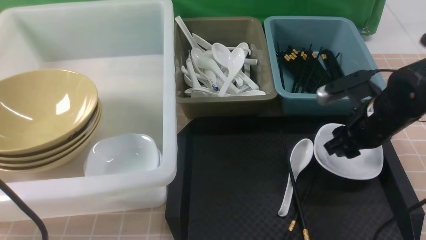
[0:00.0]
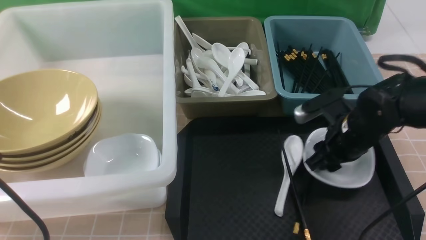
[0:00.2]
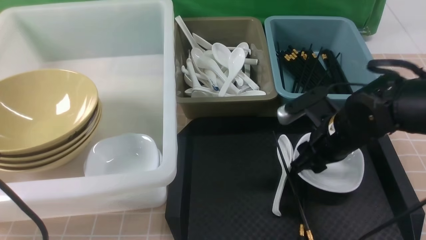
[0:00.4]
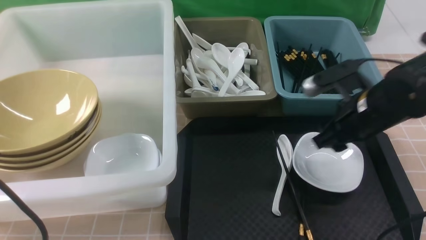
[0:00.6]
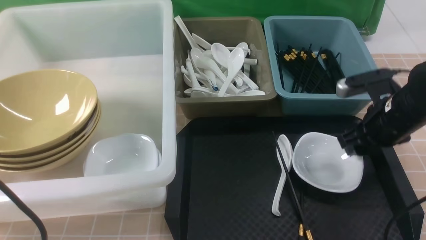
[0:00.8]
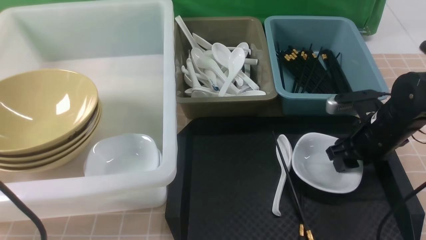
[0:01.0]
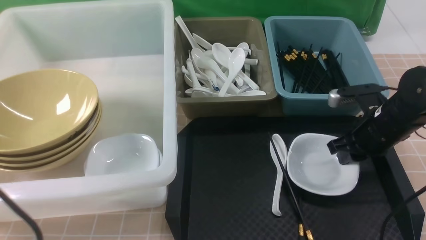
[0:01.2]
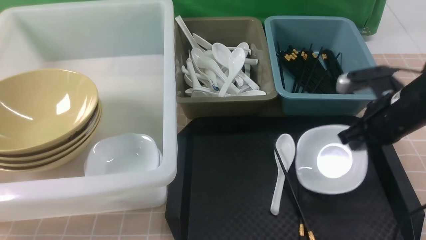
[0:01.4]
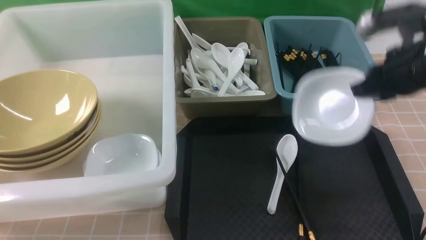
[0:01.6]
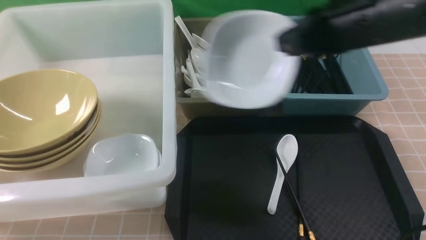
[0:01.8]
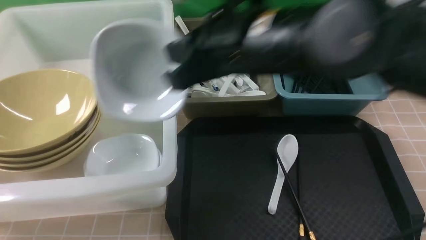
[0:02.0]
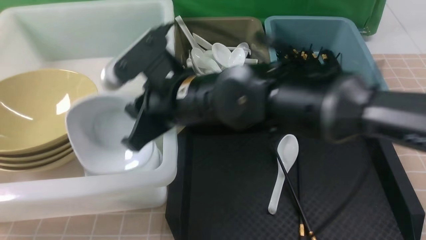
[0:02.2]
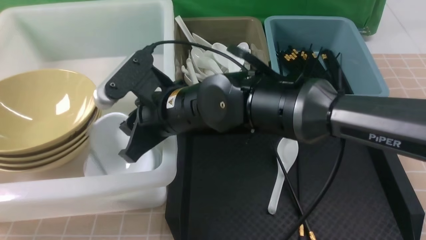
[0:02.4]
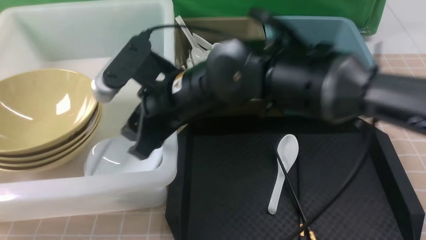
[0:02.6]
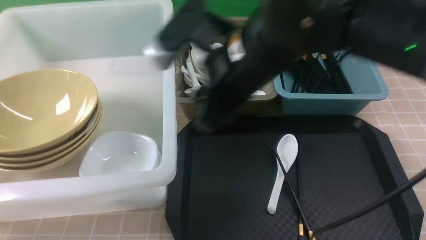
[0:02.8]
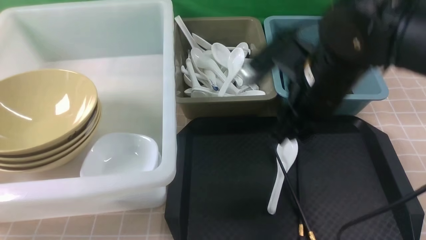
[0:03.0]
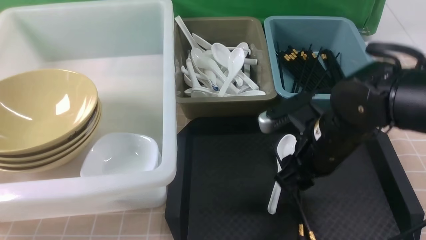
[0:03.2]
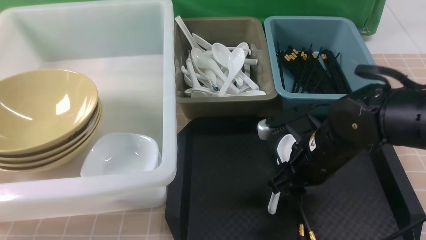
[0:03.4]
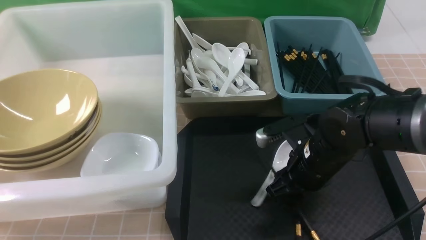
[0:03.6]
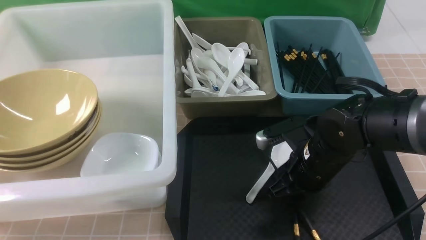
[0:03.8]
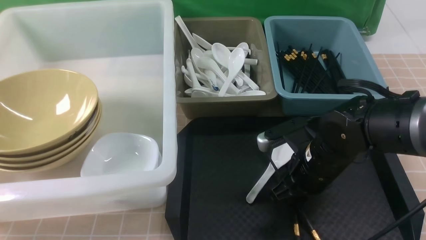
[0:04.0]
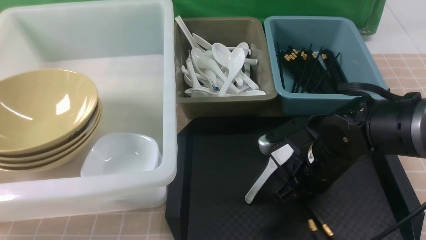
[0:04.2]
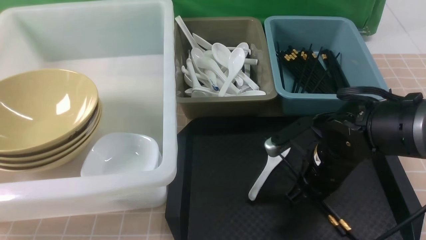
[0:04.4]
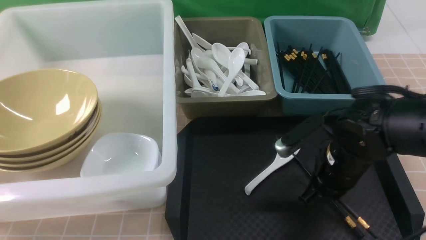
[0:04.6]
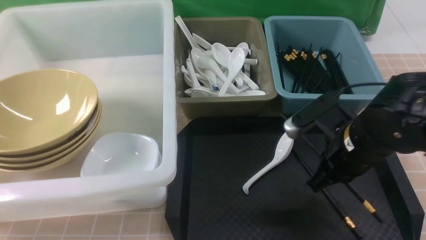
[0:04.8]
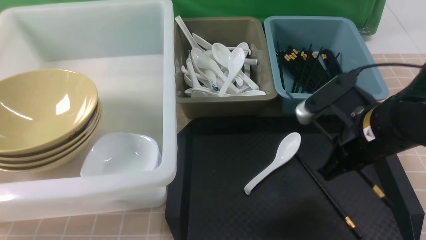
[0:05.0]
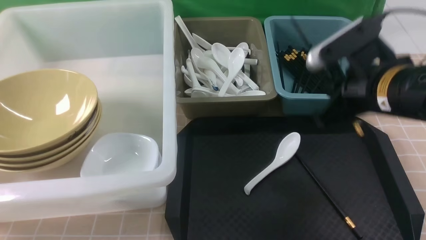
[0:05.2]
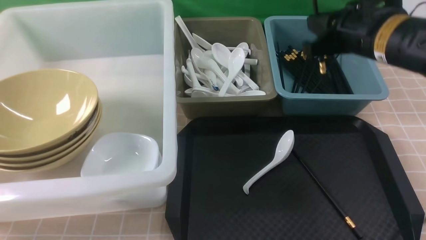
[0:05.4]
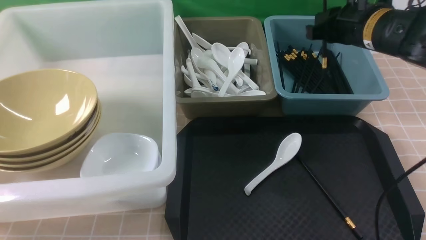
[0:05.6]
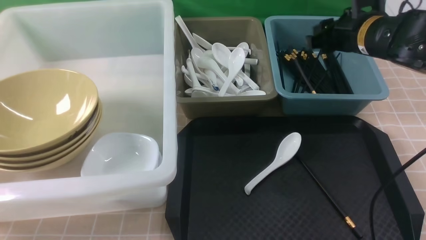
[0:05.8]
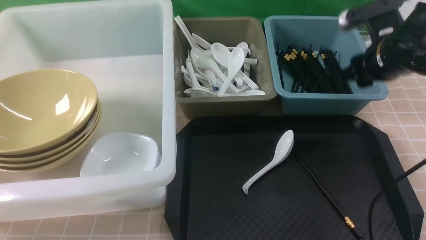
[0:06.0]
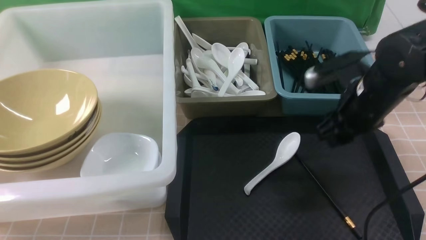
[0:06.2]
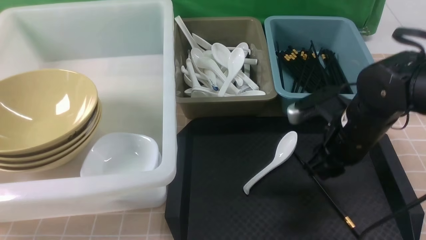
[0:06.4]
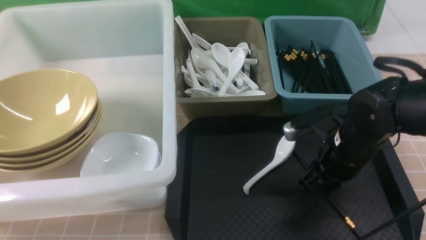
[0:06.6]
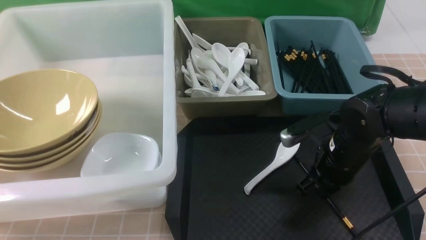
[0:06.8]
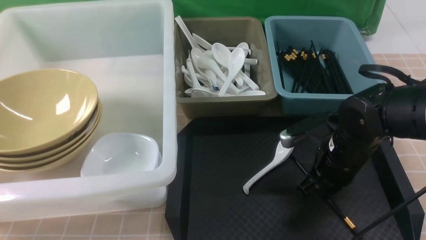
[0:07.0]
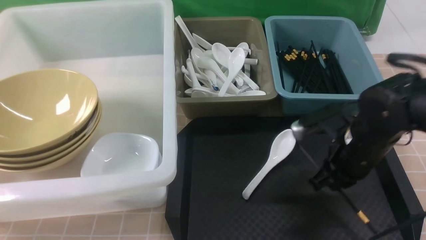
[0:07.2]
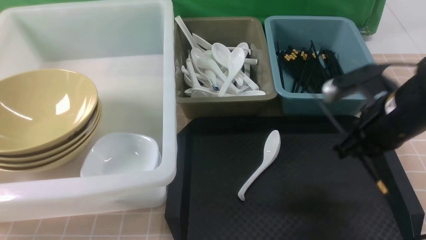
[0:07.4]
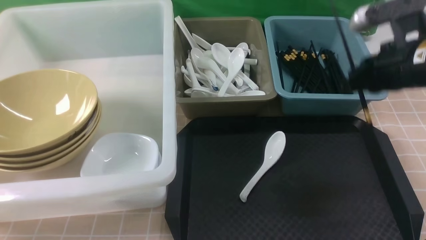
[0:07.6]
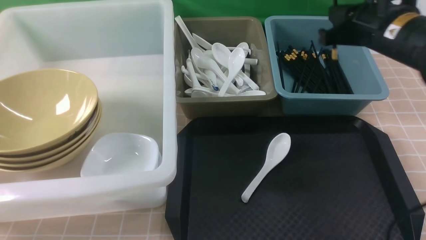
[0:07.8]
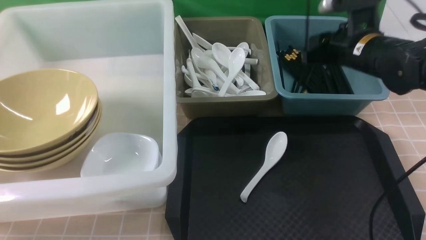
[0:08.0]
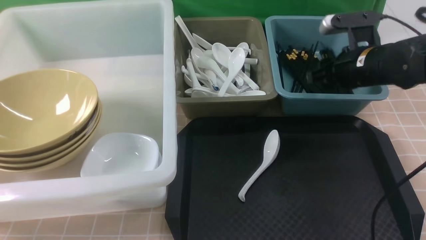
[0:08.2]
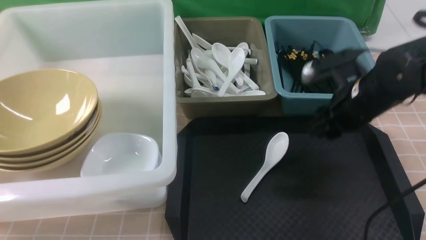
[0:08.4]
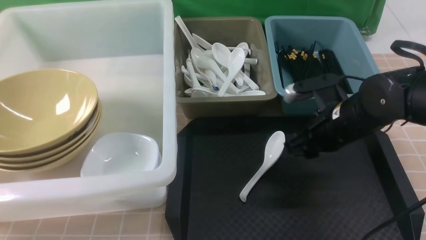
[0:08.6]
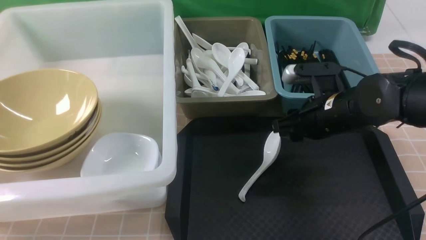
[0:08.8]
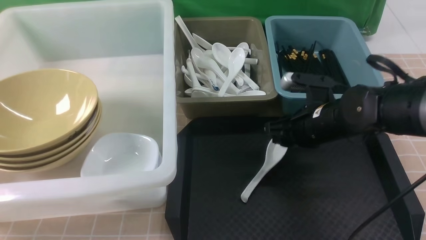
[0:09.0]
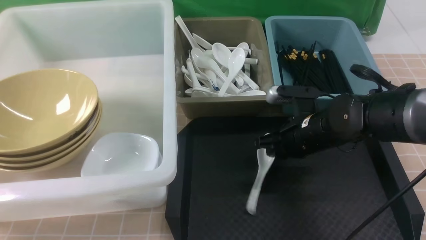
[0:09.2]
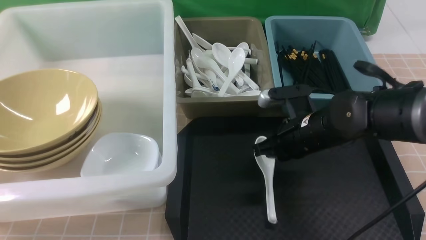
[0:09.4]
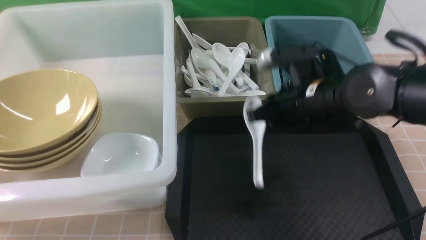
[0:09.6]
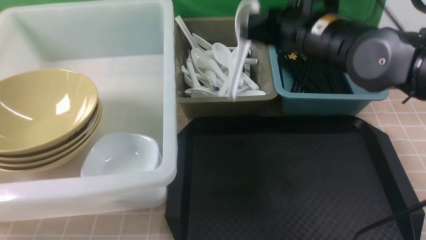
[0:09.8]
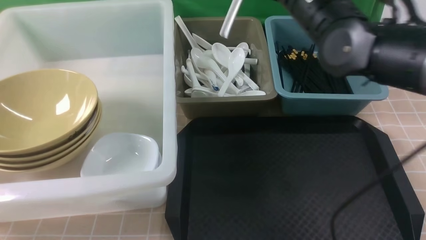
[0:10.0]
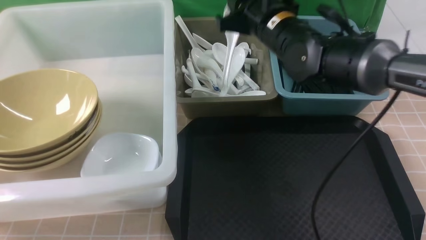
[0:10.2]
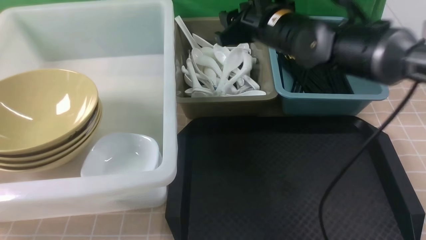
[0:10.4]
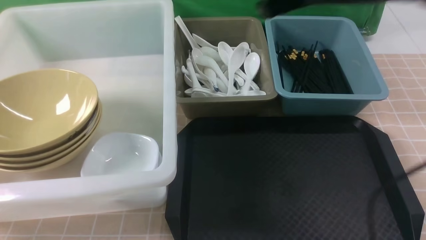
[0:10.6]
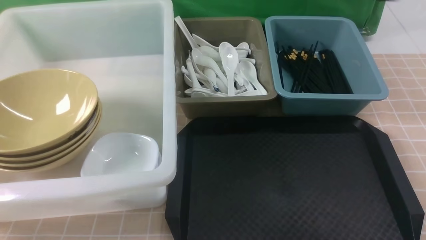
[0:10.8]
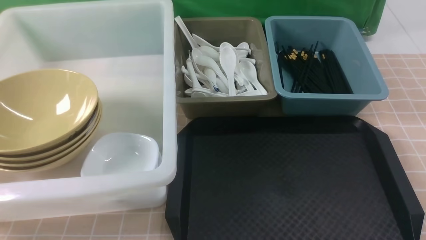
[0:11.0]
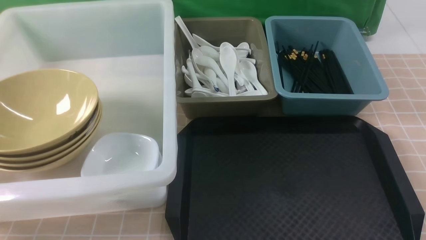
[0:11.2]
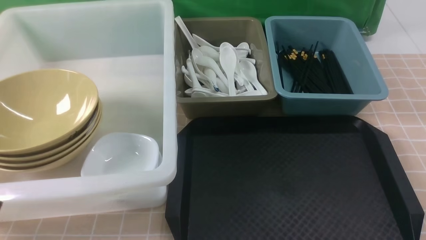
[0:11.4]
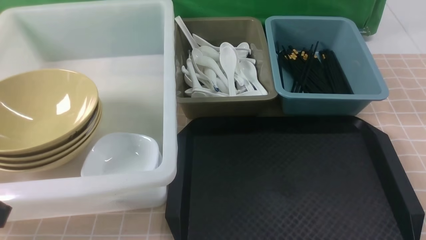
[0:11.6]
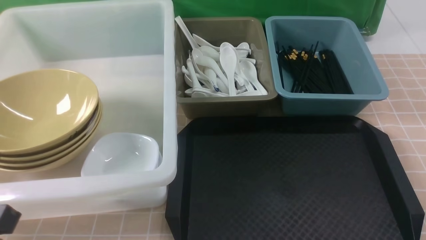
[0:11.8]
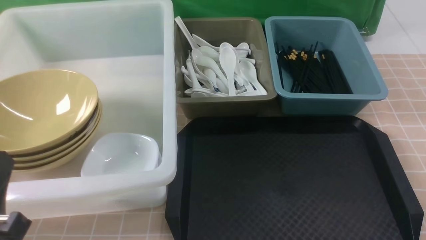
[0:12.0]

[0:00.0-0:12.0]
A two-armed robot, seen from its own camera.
Task of the whole recording: on brown table put chopsticks spoon bowls plates into blue grey white boxes.
Step, 0:00.0 to 0:01.2: use the right arm to grab the plate.
Step, 0:01.6 to 0:02.6: use the right arm to put the plate into the large storage box on the left.
Step, 0:02.8 to 0:04.6: use the right arm to grab a chopstick.
Step, 0:04.8 to 0:05.6: use the right arm to put a chopstick into the small storage box on the right.
Step, 0:05.8 to 0:07.0: use the right arm to grab a chopstick.
Step, 0:07.4 to 0:08.0: use the right arm to put a chopstick into the small storage box on the right.
Step, 0:08.4 to 0:09.4: use the right arm to grab the soup spoon in the middle.
Step, 0:09.6 to 0:10.4: use the right arm to put the soup spoon into the small storage box in the middle.
0:00.0 to 0:01.6: The right gripper goes some 10 cm upward, and closes.
0:01.6 to 0:03.0: The right gripper is displaced to the left by about 10 cm, and opens.
0:03.0 to 0:04.4: The right gripper travels downward by some 10 cm, and closes its fingers.
0:04.4 to 0:06.0: The right gripper moves forward, upward and to the right, about 15 cm, and opens.
0:06.0 to 0:07.6: The right gripper goes downward and returns, some 10 cm each way, and closes up.
0:07.6 to 0:09.0: The right gripper heads downward and to the left, covering roughly 15 cm, and opens up.
0:09.0 to 0:10.4: The right gripper shifts roughly 15 cm upward and forward, and closes and opens again.
0:10.4 to 0:12.0: The right gripper shifts approximately 40 cm backward, to the right and downward, and closes up.

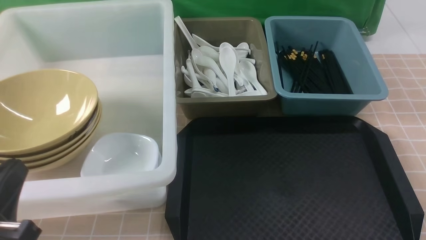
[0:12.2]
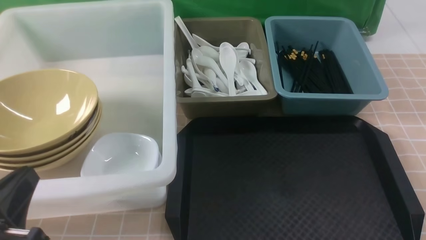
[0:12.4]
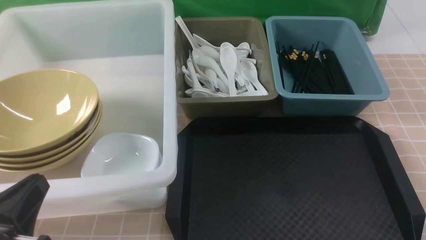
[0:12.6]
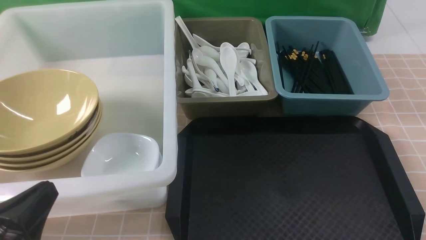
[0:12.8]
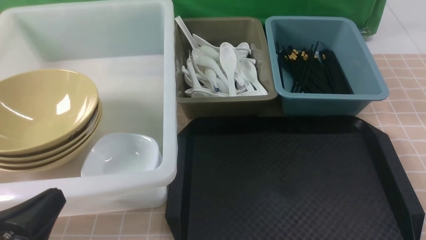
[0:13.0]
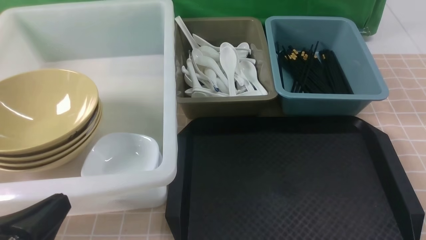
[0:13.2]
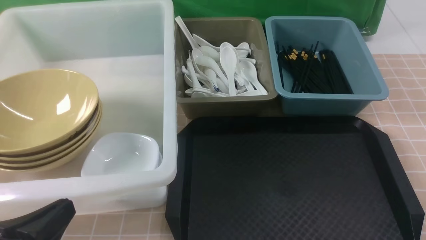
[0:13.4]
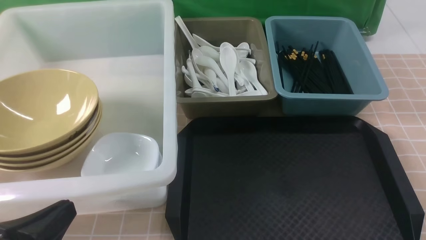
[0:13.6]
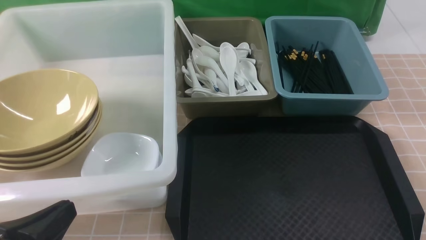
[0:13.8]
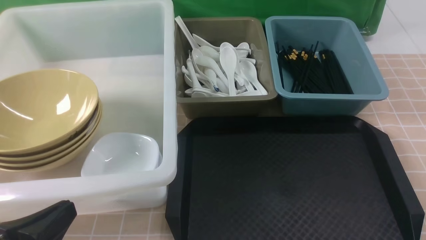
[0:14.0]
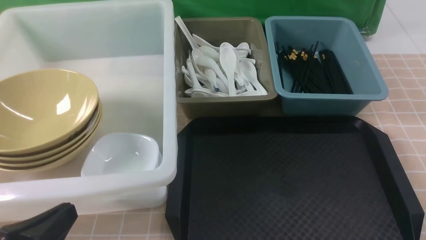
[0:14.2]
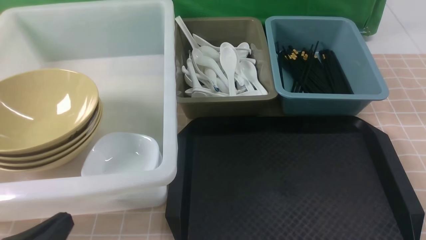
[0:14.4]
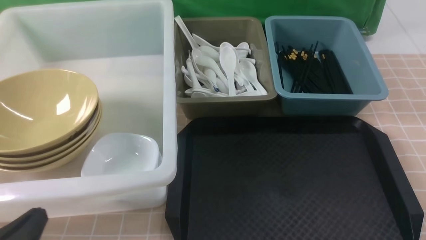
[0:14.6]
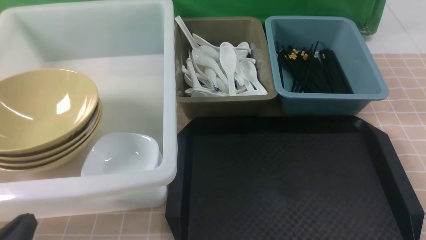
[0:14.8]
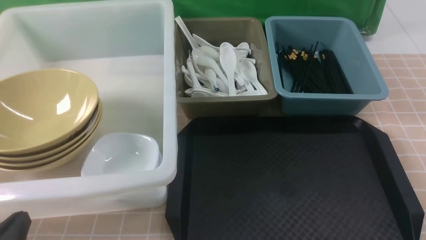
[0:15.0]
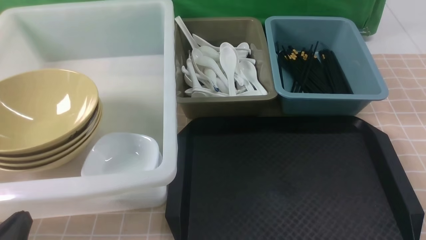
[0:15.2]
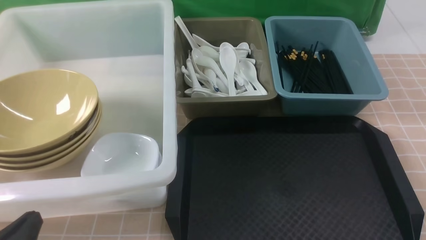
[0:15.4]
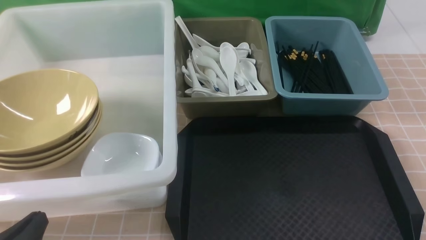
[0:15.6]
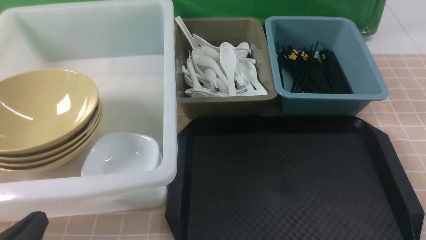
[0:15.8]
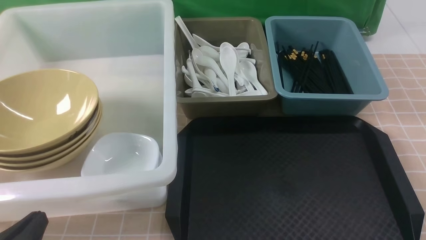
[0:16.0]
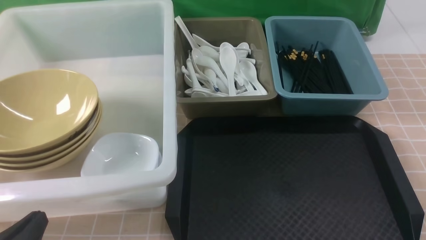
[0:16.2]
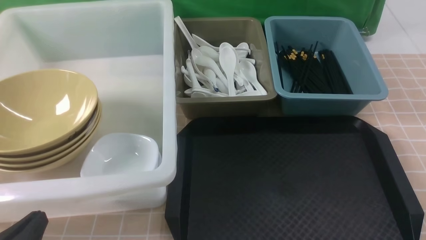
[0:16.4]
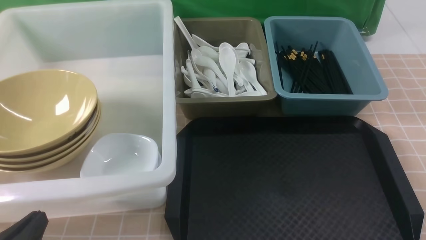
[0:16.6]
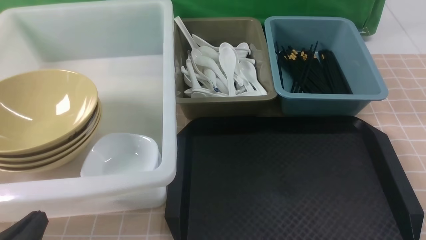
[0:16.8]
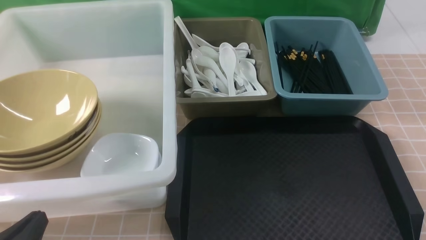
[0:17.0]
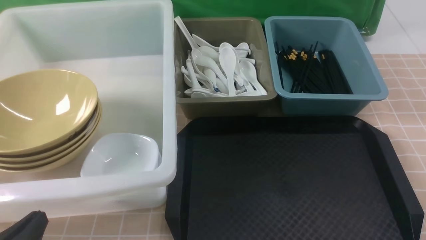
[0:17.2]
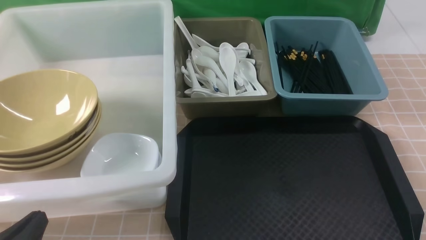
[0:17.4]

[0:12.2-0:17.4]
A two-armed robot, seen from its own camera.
Task of the whole recording: on brown table put chopsticks spoon bowls plates into blue grey white boxes.
0:12.2 to 0:14.0: The grippers stay close to where they were, moving slightly.
0:14.0 to 0:15.6: The left gripper changes place by approximately 5 cm.
0:15.6 to 0:17.4: Both grippers stay put.
